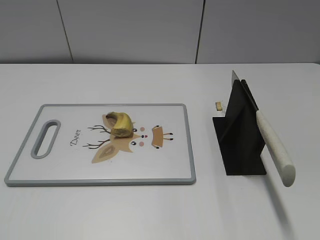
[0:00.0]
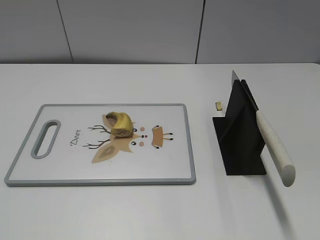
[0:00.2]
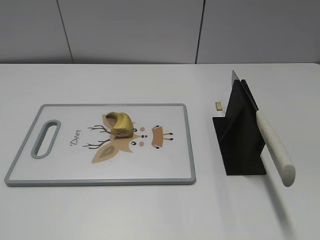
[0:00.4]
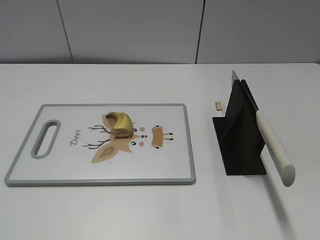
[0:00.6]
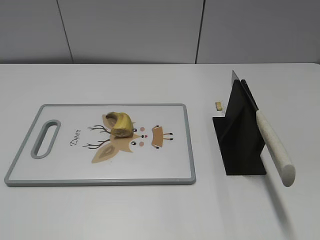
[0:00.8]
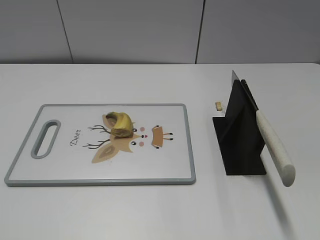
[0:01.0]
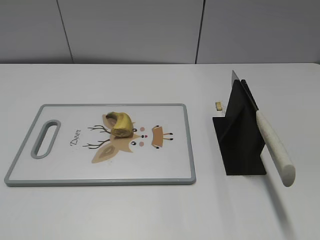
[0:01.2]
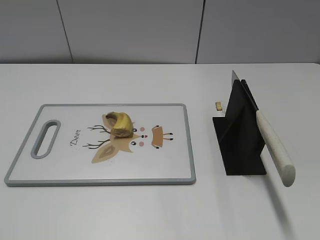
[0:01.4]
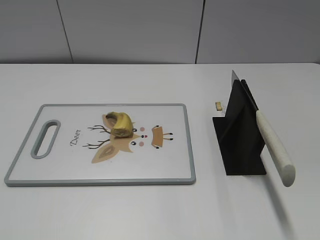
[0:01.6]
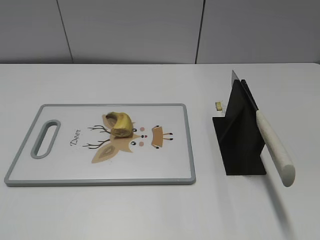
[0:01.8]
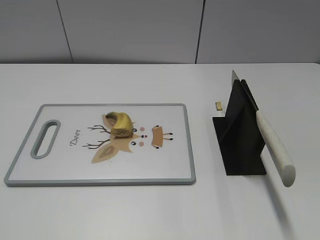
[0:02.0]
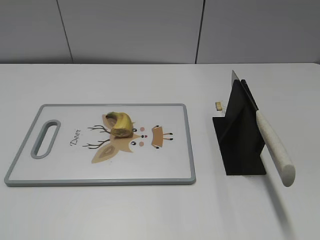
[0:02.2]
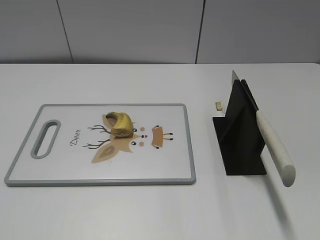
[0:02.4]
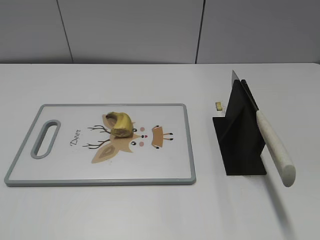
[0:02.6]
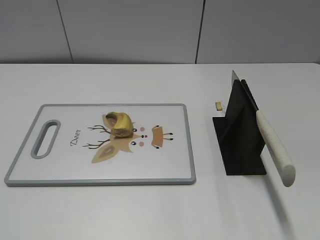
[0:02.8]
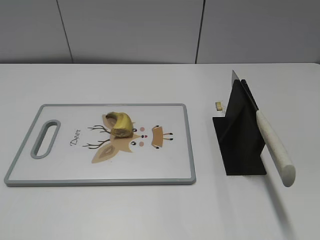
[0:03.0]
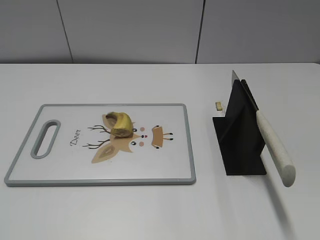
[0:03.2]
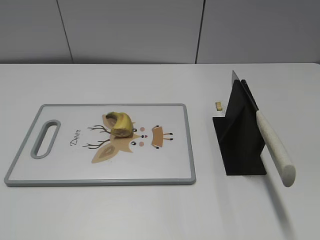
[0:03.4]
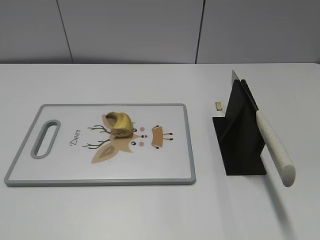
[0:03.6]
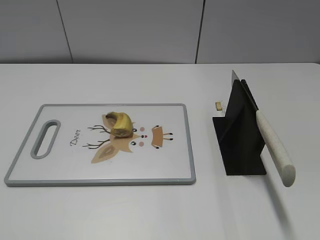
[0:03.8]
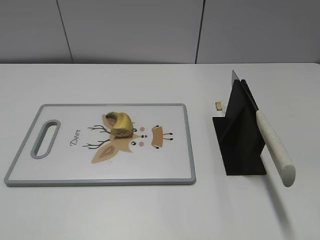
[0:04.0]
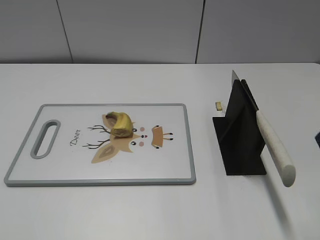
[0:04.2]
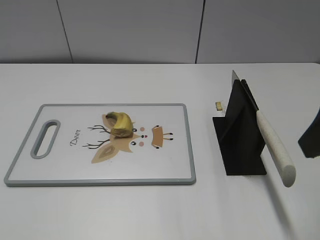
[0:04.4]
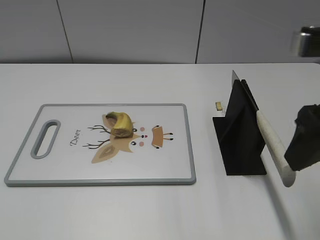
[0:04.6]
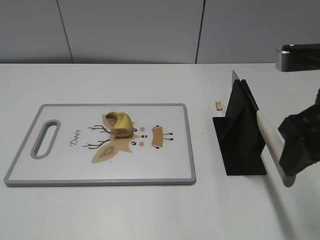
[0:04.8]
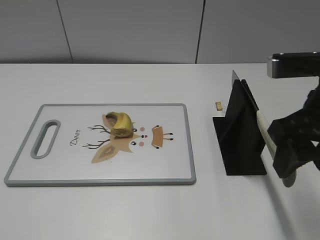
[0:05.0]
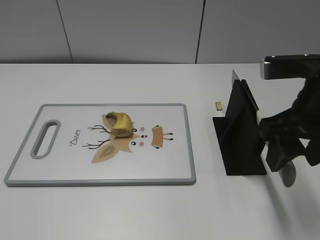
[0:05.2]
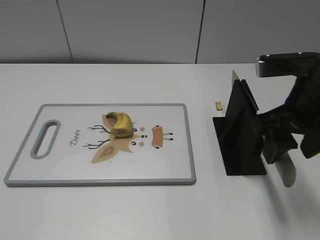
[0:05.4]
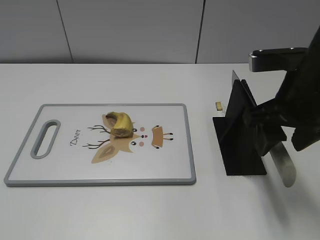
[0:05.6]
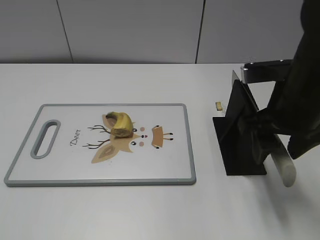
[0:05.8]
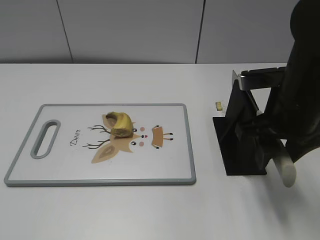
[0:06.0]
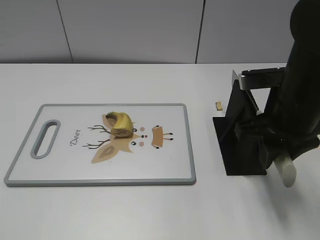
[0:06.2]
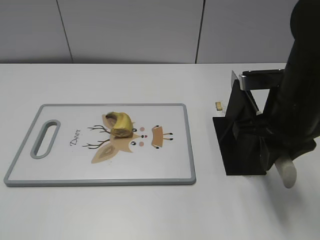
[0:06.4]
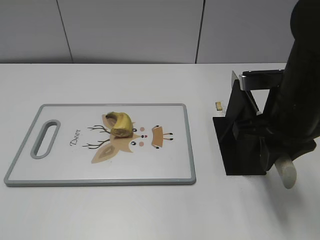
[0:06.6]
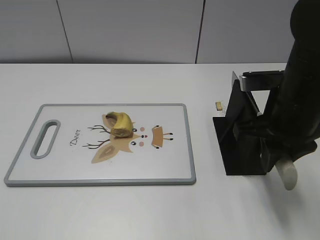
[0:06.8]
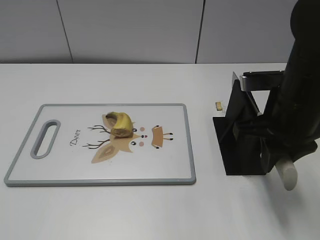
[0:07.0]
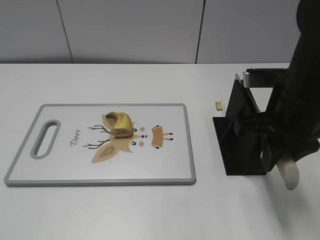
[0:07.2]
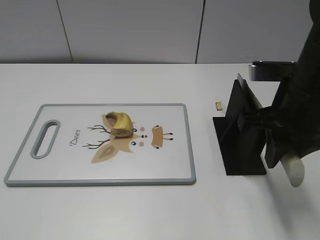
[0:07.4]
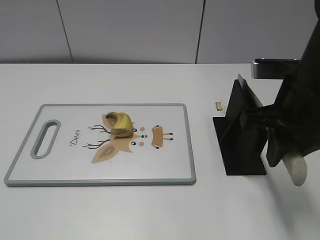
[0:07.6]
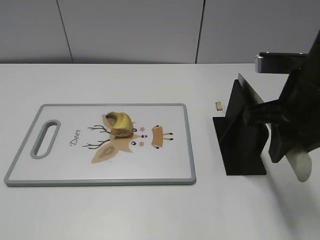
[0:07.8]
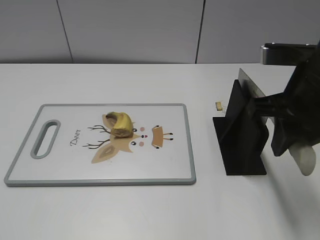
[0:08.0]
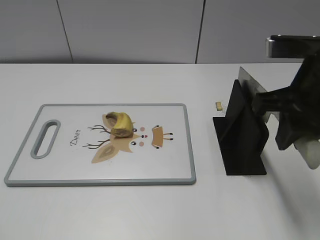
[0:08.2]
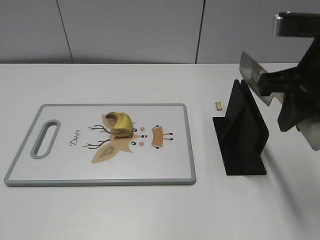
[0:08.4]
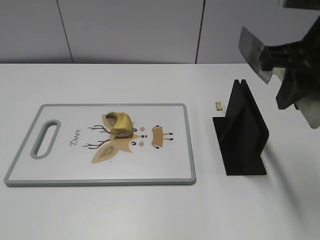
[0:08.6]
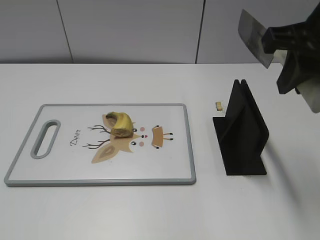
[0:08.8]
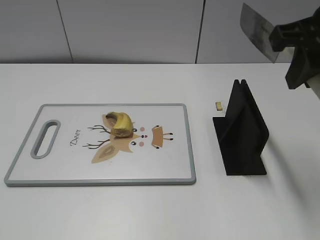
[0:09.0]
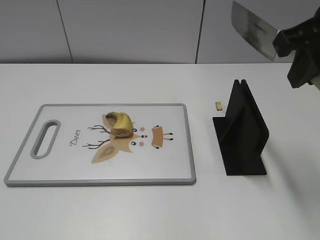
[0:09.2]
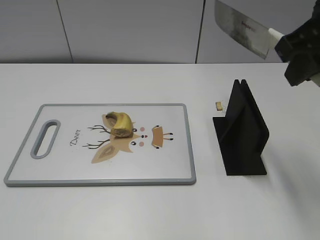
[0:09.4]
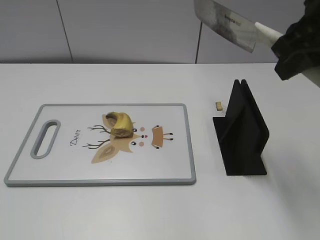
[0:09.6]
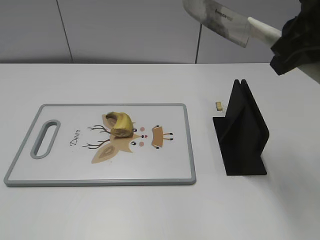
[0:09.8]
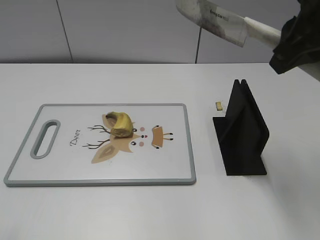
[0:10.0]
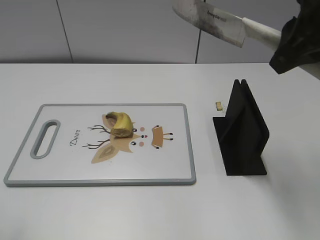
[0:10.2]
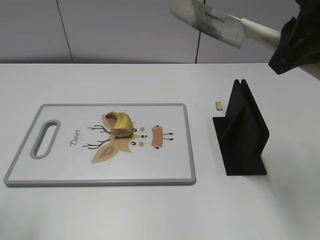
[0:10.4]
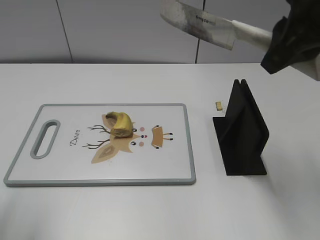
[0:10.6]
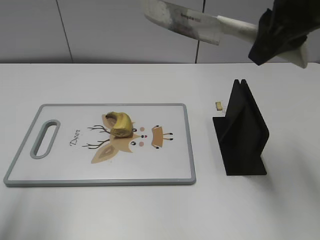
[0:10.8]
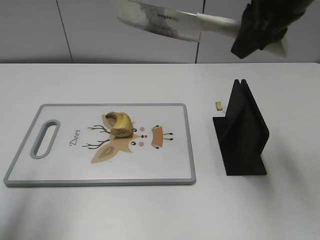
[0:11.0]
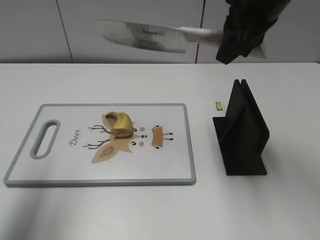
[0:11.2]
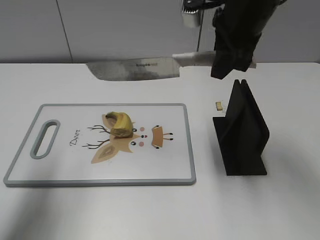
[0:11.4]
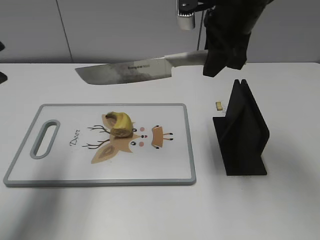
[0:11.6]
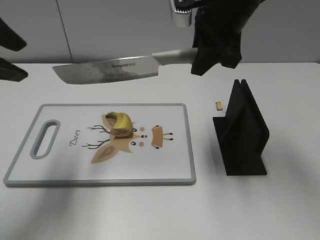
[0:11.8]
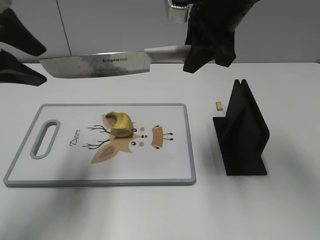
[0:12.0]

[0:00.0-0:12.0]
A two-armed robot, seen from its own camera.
Task of the whole recording: cut banana.
Step, 0:00.0 to 0:08.2: Grab the knife handle with your right hand.
0:03.0 to 0:04.4: The right gripper goes roughly 15 cm forward and to the left.
0:04.4 to 0:06.0: The right gripper goes some 15 cm downward and forward.
0:06.0 to 0:07.6: The right gripper closes up.
0:07.6 to 0:09.0: The right gripper goes roughly 10 cm upward.
0:09.0 to 0:10.4: The left gripper shifts roughly 15 cm forward and upward.
0:10.4 to 0:12.0: The left gripper is displaced forward by about 15 cm. The right gripper goes roughly 15 cm forward and to the left.

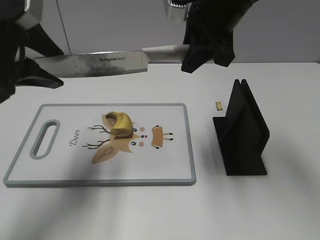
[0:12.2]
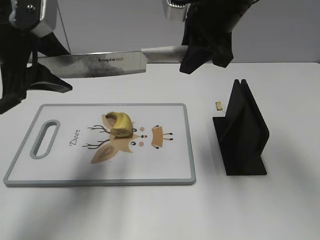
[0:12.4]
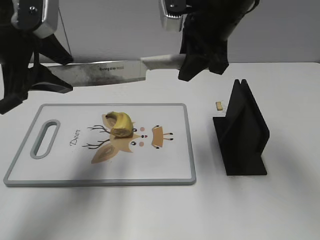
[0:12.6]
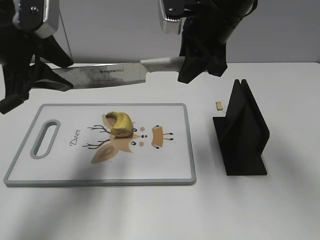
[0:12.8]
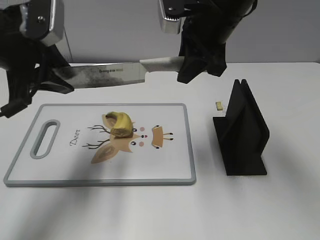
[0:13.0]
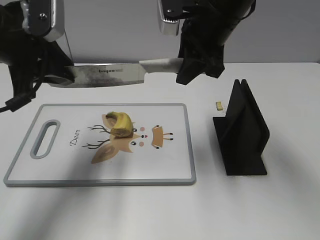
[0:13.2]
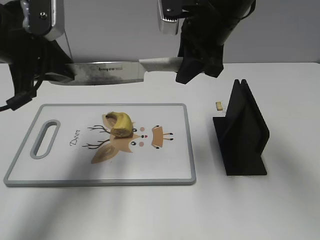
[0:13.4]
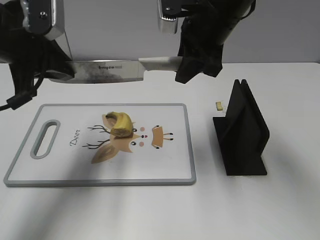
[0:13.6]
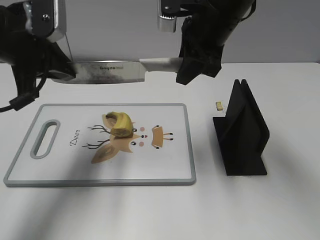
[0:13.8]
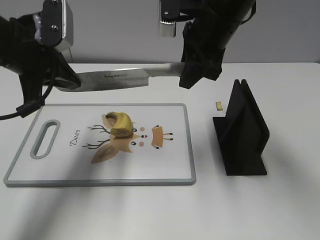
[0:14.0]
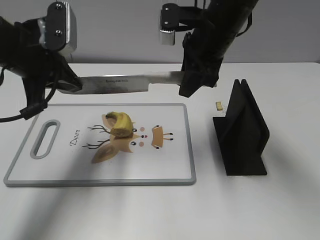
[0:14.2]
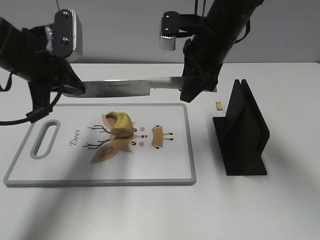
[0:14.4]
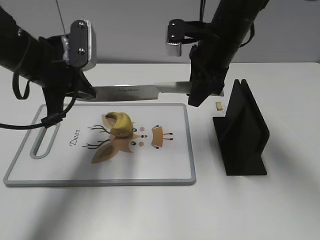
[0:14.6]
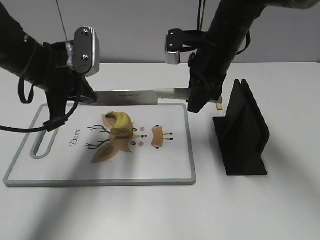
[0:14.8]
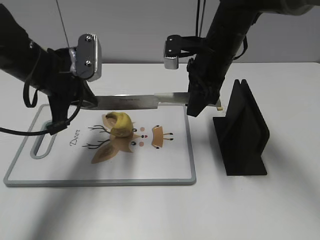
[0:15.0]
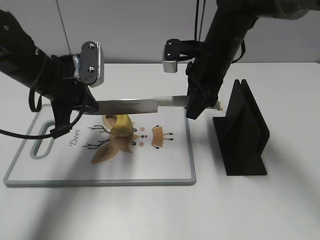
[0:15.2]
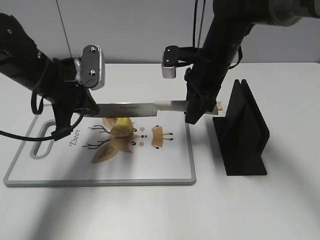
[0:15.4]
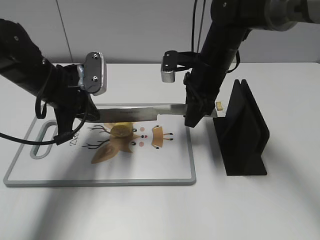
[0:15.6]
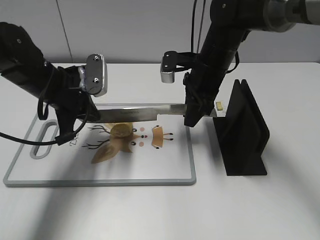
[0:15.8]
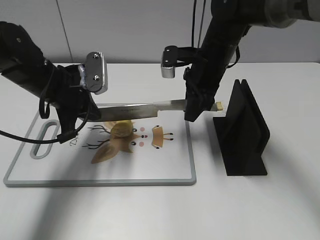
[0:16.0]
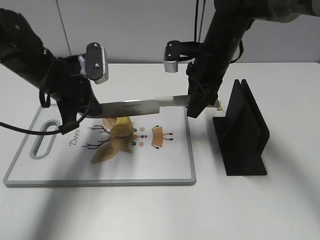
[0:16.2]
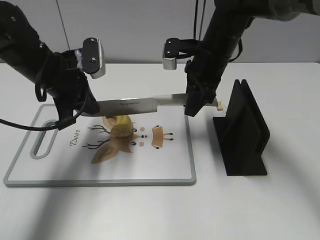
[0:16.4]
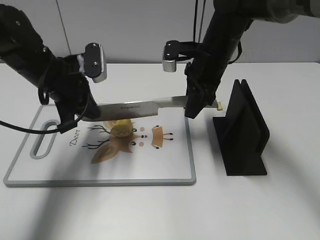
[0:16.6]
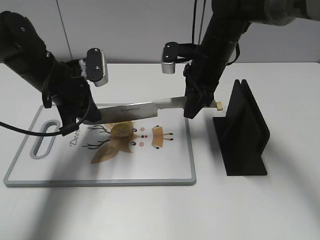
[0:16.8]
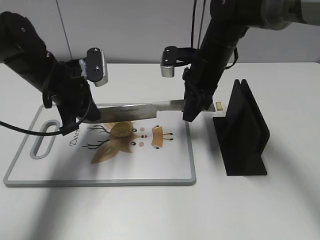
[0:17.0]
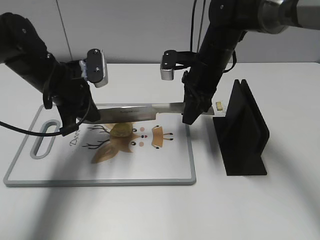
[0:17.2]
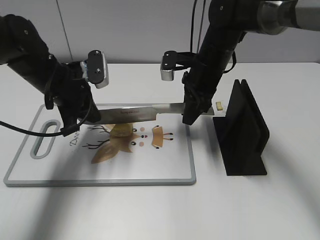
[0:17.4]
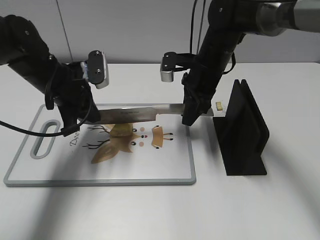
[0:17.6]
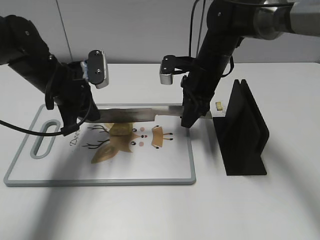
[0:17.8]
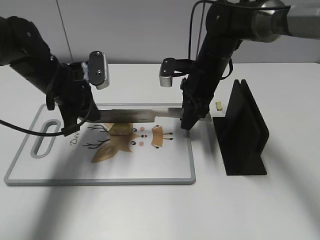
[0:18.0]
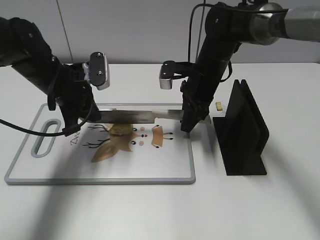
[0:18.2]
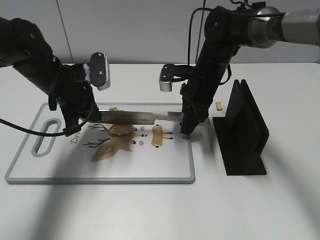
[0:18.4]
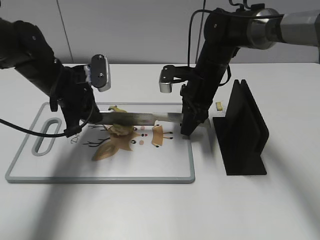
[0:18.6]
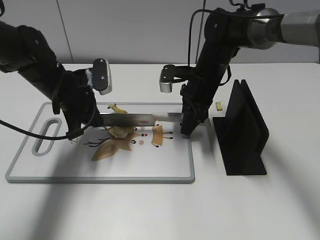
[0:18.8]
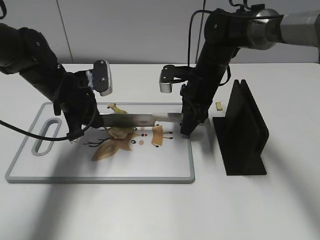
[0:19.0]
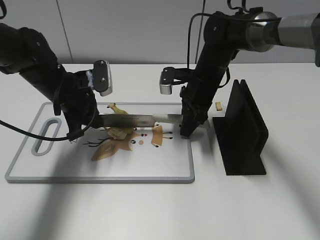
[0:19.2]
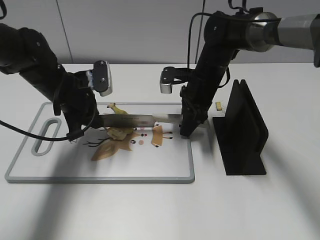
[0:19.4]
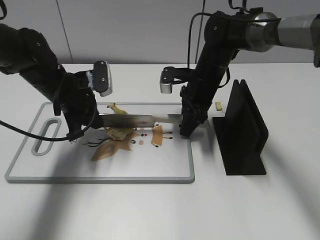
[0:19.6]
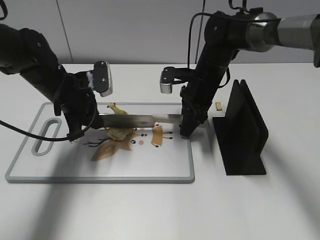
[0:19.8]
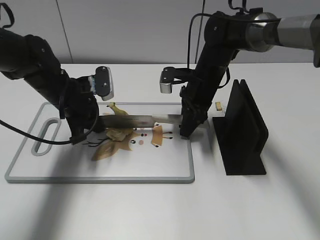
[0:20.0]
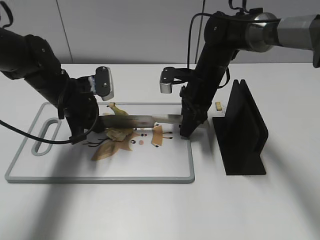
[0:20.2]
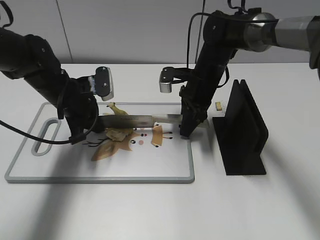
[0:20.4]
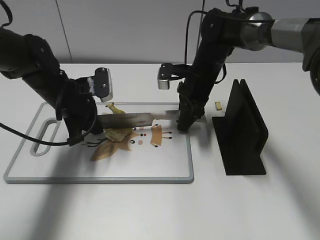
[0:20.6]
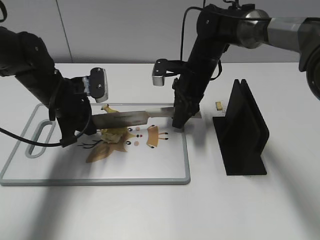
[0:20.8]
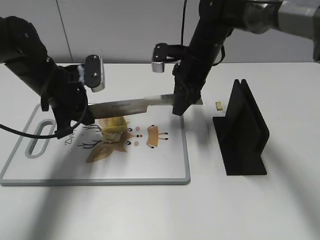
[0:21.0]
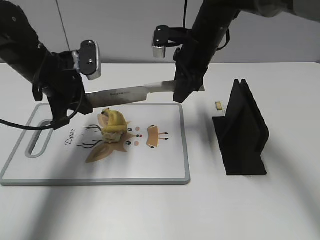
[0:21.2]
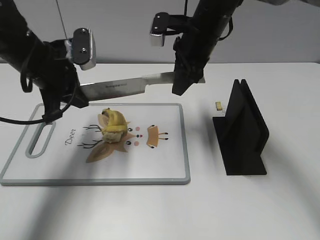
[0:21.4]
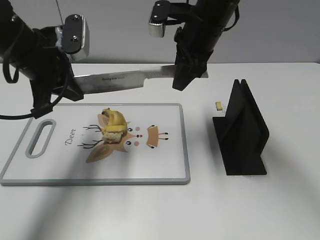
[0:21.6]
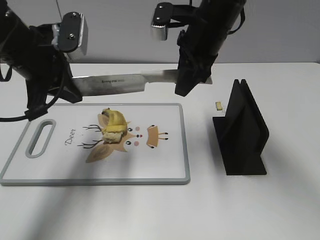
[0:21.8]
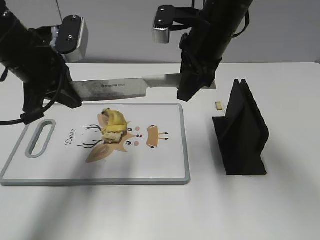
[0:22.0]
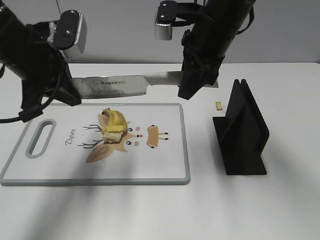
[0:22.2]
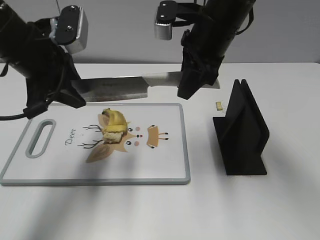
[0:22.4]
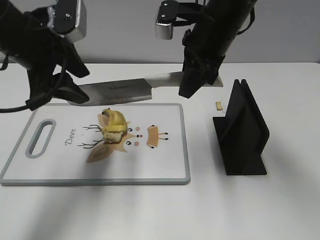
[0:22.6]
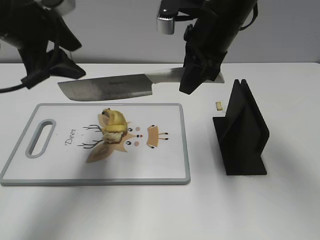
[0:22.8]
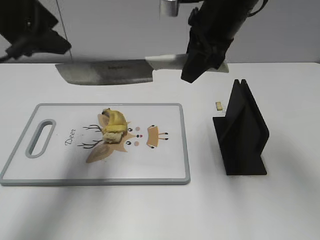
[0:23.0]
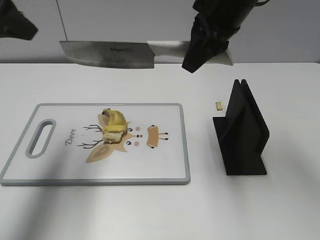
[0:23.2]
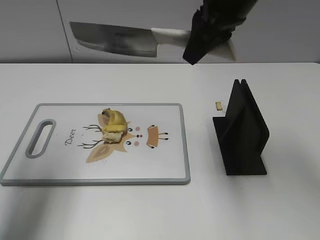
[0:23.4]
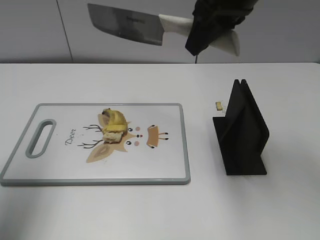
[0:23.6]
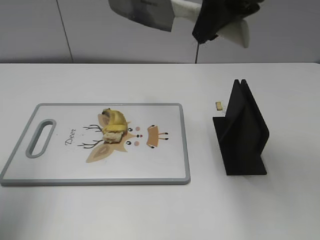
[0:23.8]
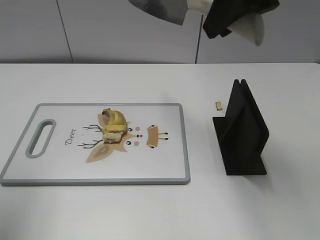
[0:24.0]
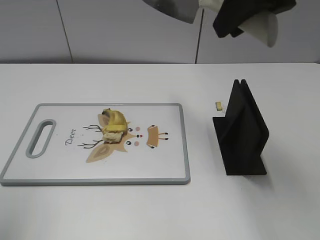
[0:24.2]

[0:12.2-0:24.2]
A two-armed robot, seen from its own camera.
Task of the whole recording: cut banana.
Step, 0:12.2 to 0:16.8: Lift the knife with your right hand.
Step, 0:17.0 to 0:24.2: Cut the banana with your right hand.
0:12.2 to 0:13.8: The left gripper closes.
0:13.8 to 0:15.2: Both grippers move downward, roughly 10 cm.
0:15.2 to 0:16.6: There are only small adjustments of the grippers.
0:16.6 to 0:18.2: The right gripper travels downward by about 5 cm.
0:18.2 to 0:19.8: The grippers make only small movements.
0:19.8 to 0:21.2: The grippers both shift upward by some 5 cm.
0:21.2 to 0:22.6: The right gripper travels upward and backward by approximately 10 cm. Meanwhile the left gripper is displaced upward by approximately 10 cm, and opens.
0:22.6 to 0:24.2: The right gripper heads upward and backward, covering some 15 cm. The left gripper moves backward, upward and to the left, about 25 cm.
